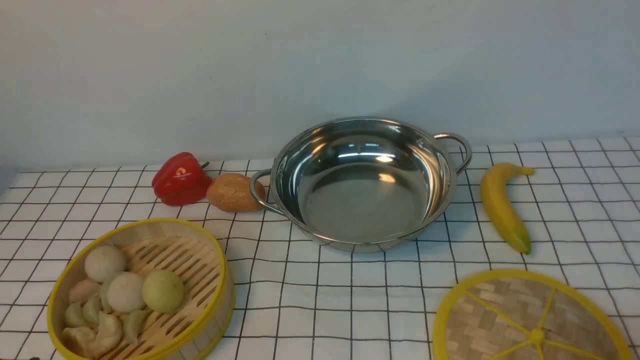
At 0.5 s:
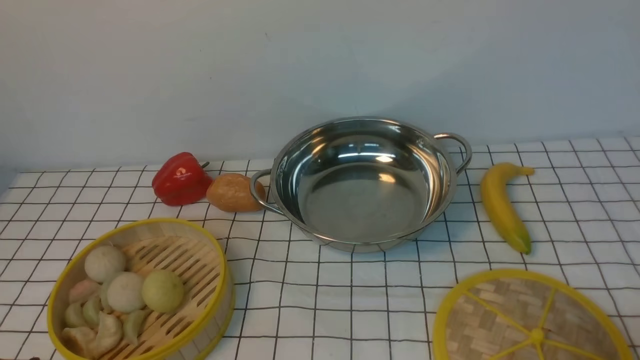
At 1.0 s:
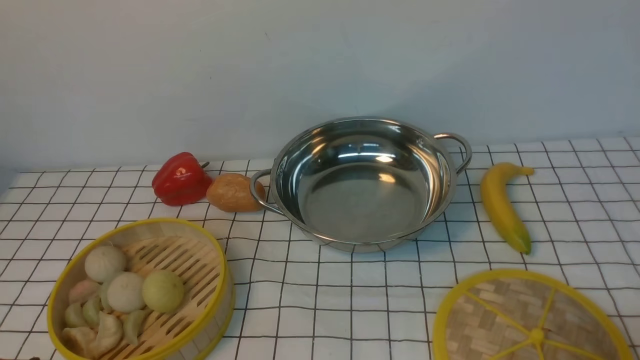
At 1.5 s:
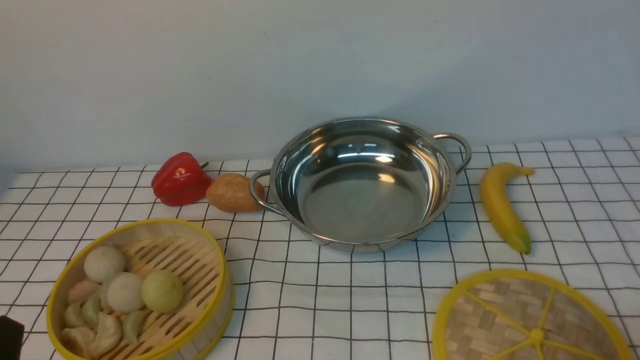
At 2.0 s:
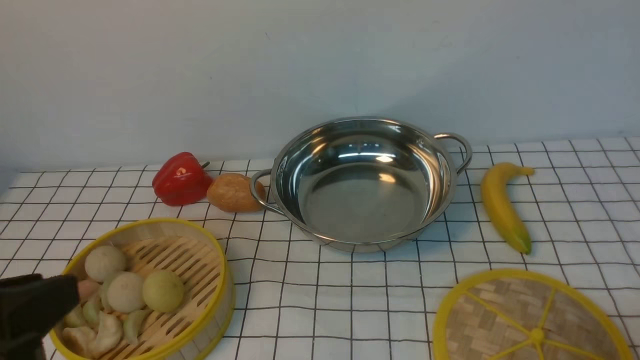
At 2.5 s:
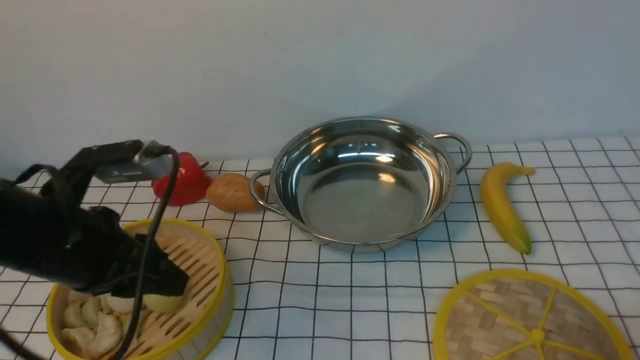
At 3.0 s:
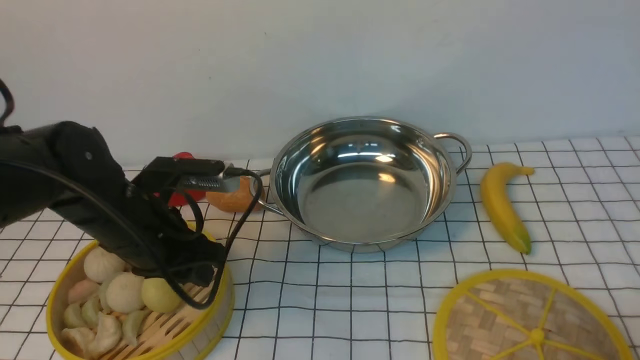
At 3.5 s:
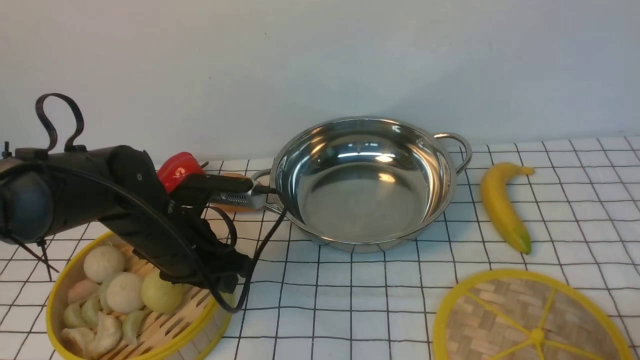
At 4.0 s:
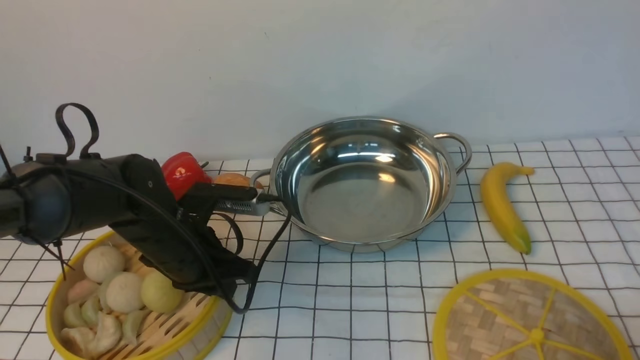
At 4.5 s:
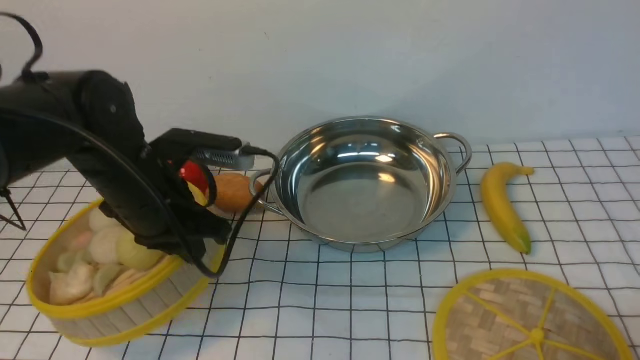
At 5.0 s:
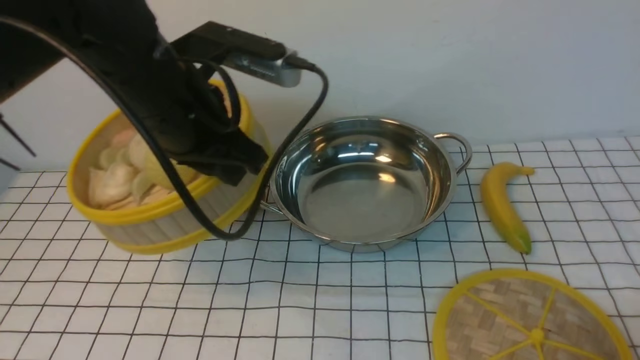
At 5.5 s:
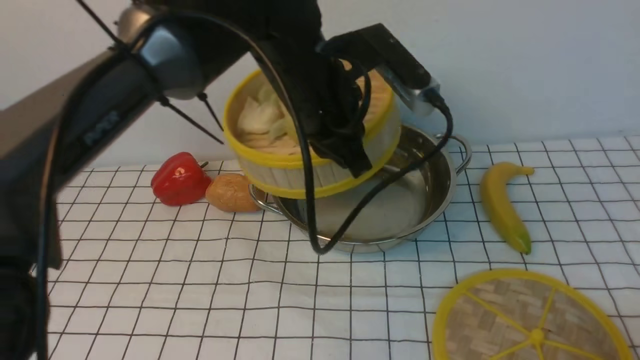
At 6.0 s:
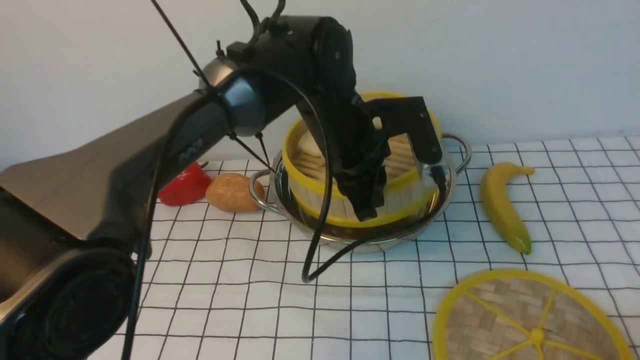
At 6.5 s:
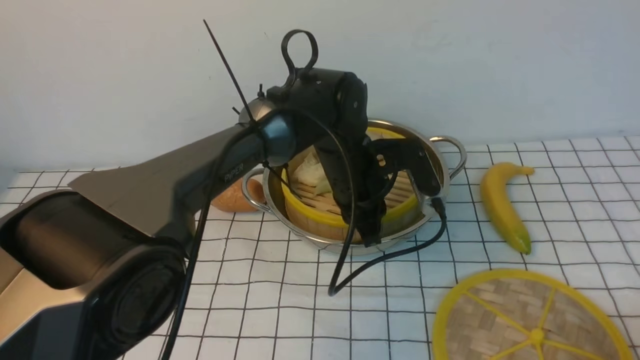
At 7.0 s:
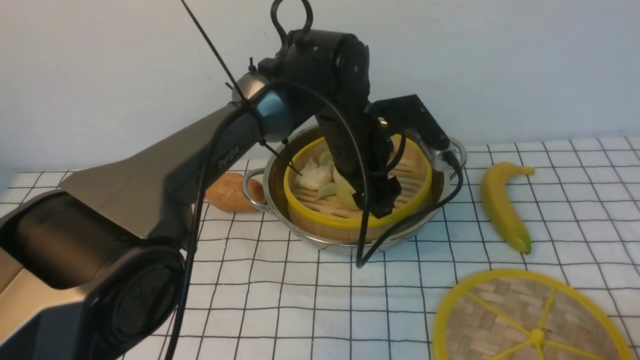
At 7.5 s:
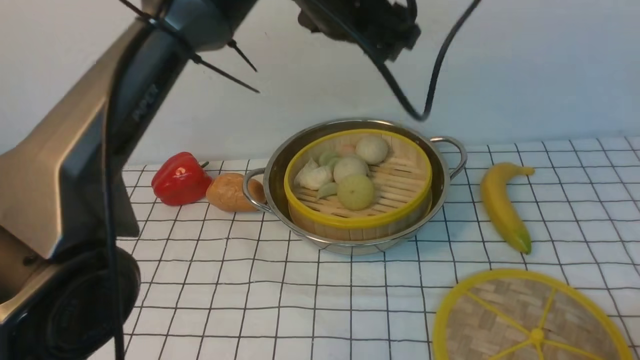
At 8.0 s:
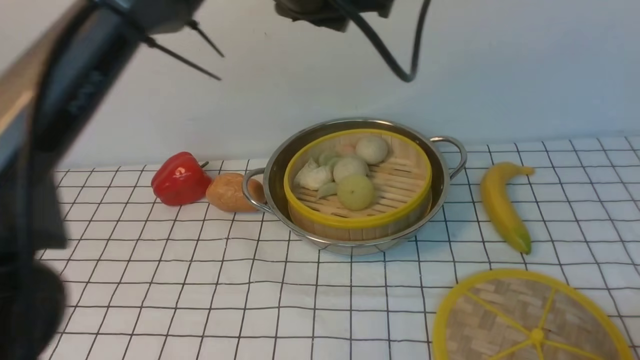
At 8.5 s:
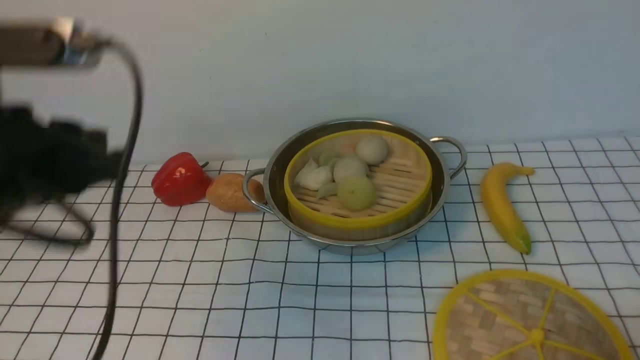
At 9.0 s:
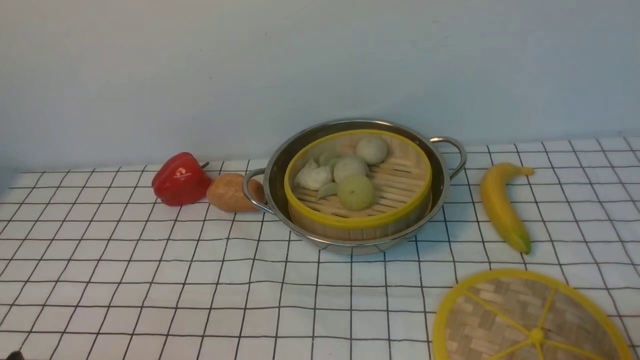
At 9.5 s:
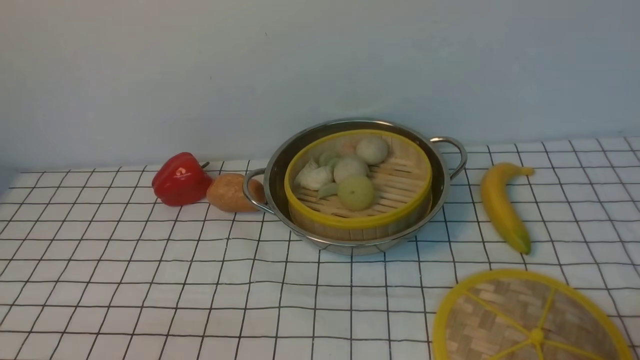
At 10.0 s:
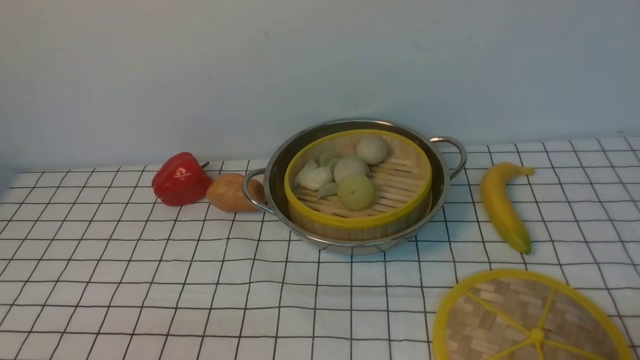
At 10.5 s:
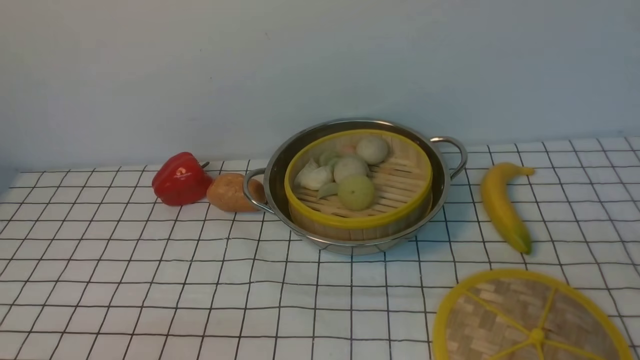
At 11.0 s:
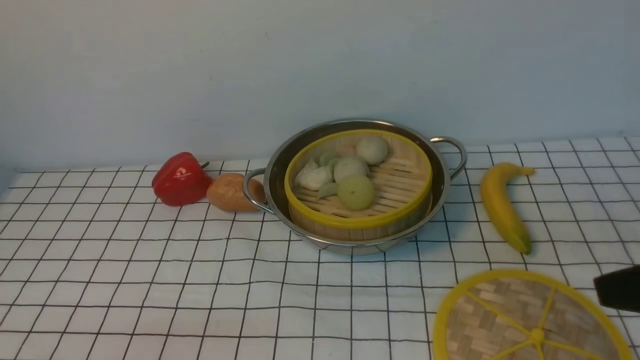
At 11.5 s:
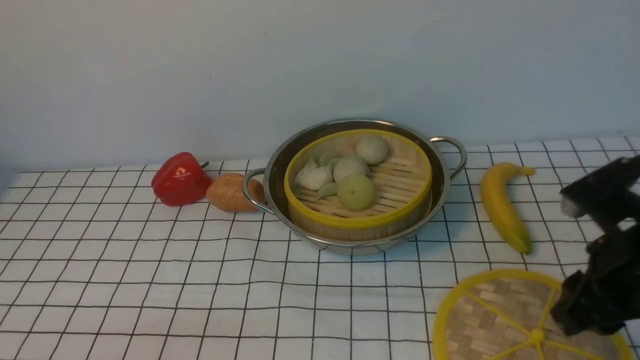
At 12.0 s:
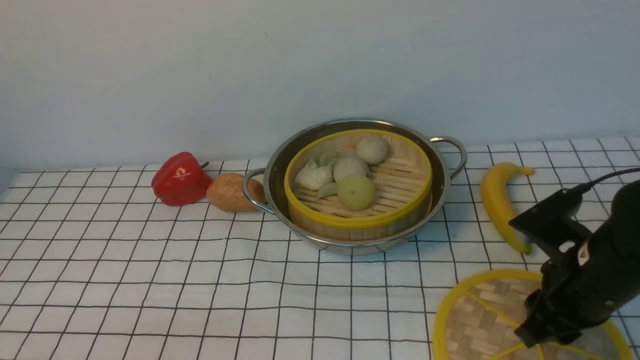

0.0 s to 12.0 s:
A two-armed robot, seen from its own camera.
Task of the whole recording: place the steamer in the pot on the white tablecloth, and put the lid on the steamer.
Step, 0.0 to 4.0 s: use the left arm to lift the steamer closest to it.
Step, 4.5 to 7.0 s: use the left arm to put the steamer into the iron steamer pot in the middle.
0.0 to 2.0 s: The left gripper travels upward by about 15 cm.
2.0 to 4.0 s: The left gripper goes approximately 25 cm forward and downward.
4.0 to 6.0 s: The left gripper heads to the right, upward and forward, covering roughly 20 cm.
6.0 to 8.0 s: The left gripper shifts roughly 20 cm upward, and opens, then closes once more.
8.0 to 10.0 s: The left gripper is displaced backward, downward and to the left by some 50 cm.
10.0 to 12.0 s: The right gripper moves forward and to the left, about 20 cm.

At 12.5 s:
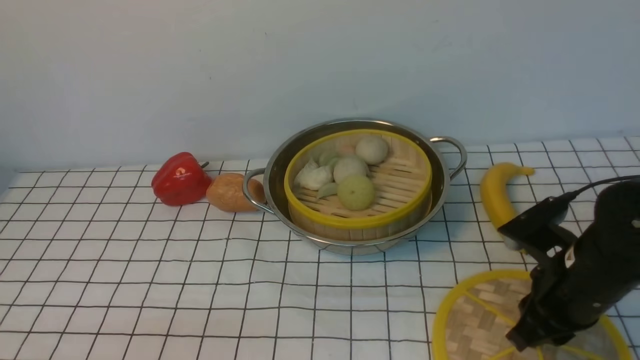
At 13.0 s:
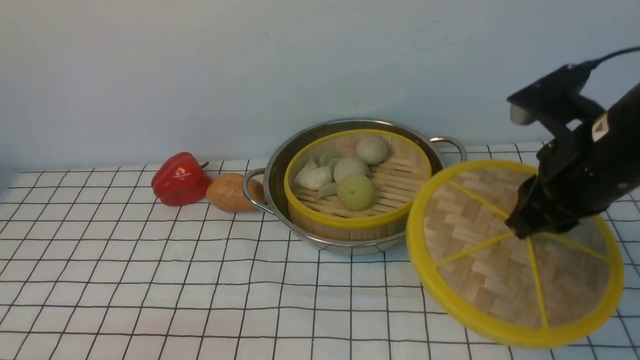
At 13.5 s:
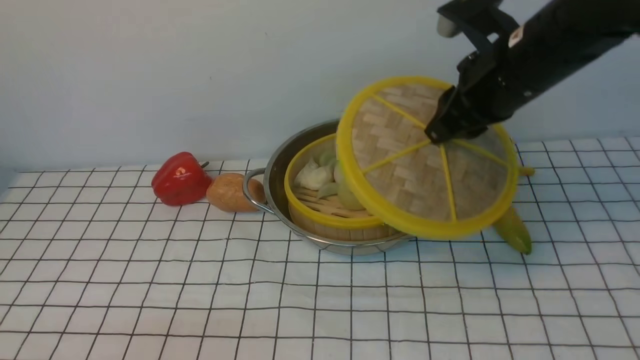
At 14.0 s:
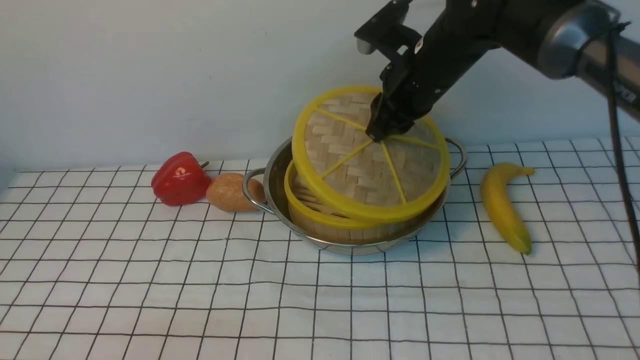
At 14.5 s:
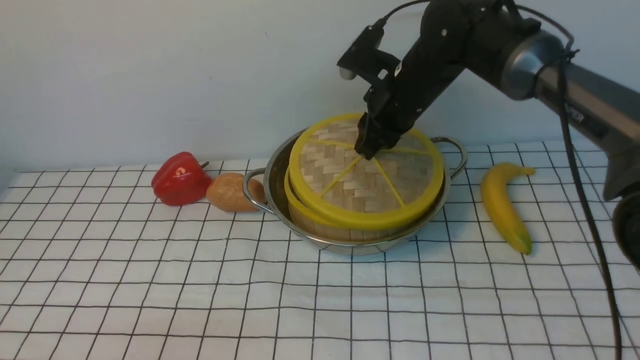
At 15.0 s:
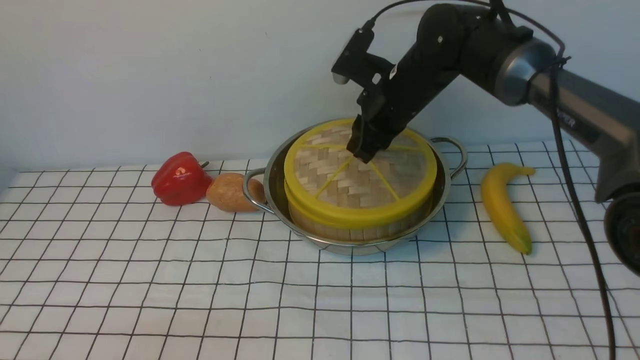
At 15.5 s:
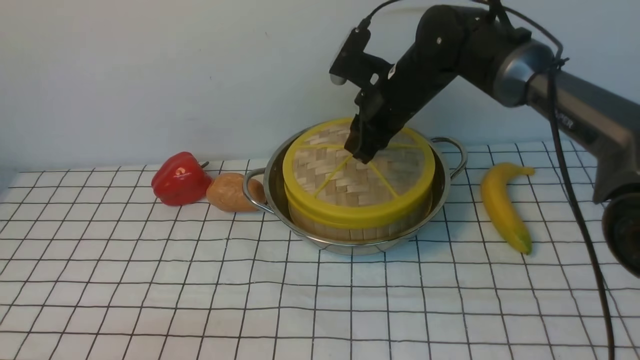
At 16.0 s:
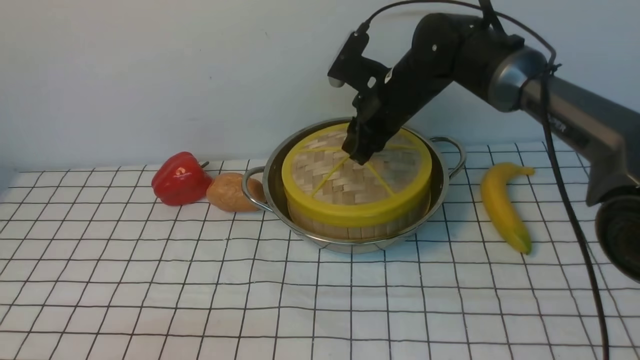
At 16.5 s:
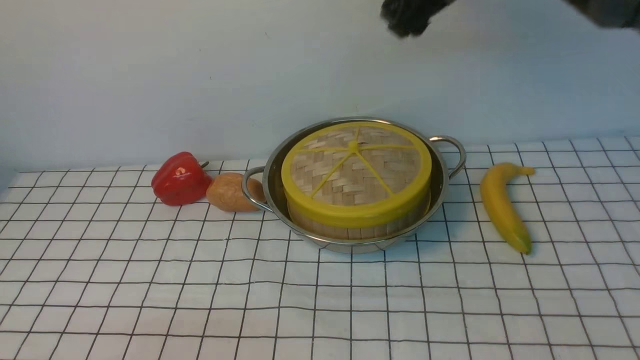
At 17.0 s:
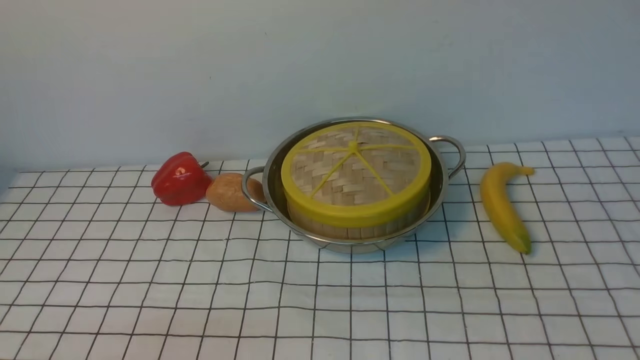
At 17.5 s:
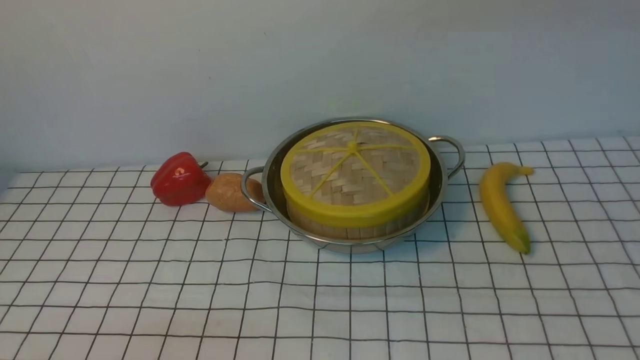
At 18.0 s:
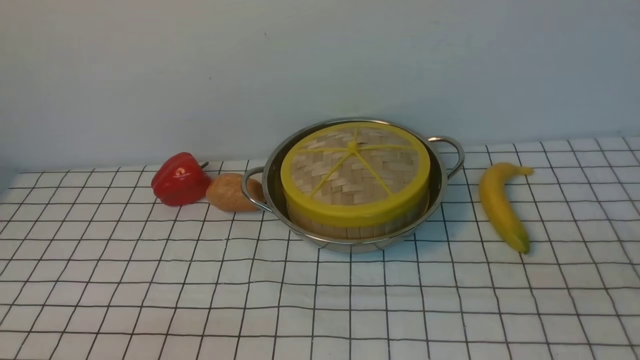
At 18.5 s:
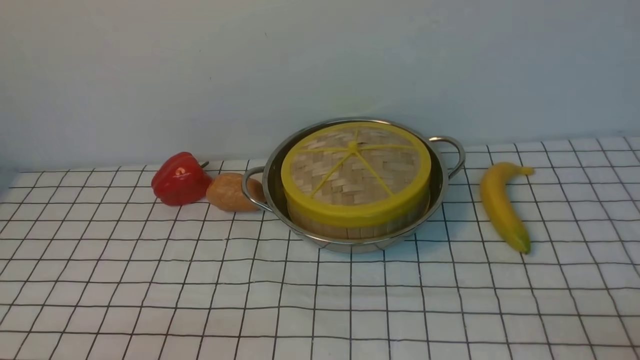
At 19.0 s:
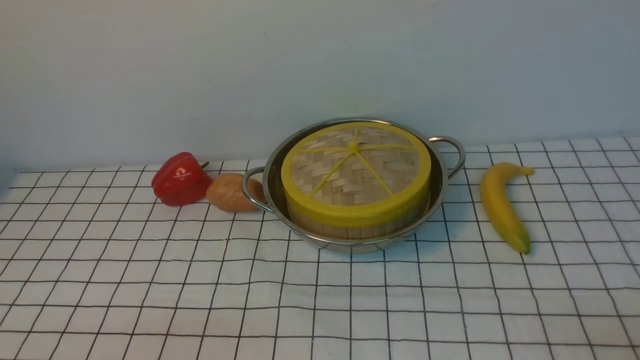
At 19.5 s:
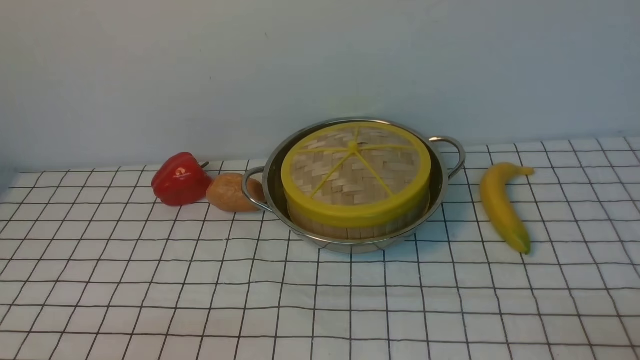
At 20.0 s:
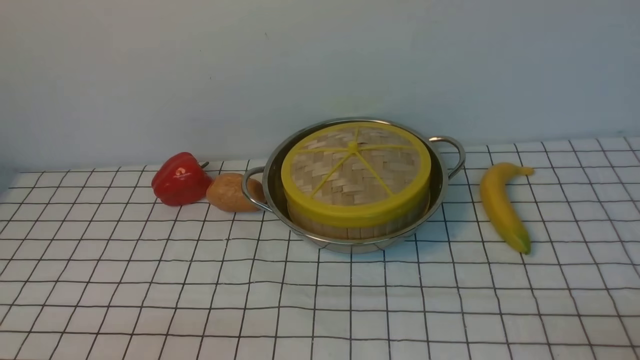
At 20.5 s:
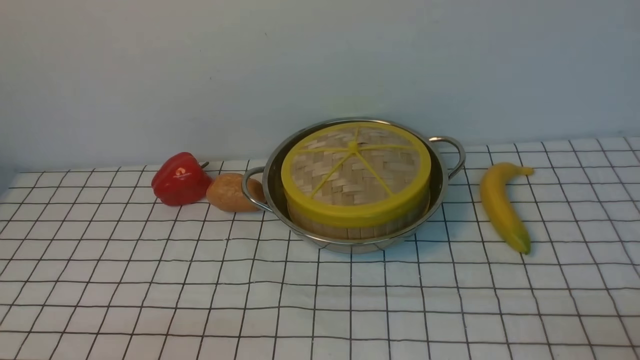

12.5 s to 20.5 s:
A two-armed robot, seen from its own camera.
Task of the whole recording: place the steamer in the pot on the white tablecloth, and put the lid on the steamer.
Step, 13.0 to 16.0 s: use the right arm to place the steamer lid on the steamer.
12.5 to 14.5 s: The right gripper shifts approximately 25 cm forward and to the left.
14.5 to 16.5 s: The right gripper goes about 15 cm upward, and opens.
16.5 to 18.5 s: The right gripper heads backward, downward and to the right, covering approximately 50 cm, and closes its fingers.
18.5 to 20.5 s: Both grippers stay about where they are.
